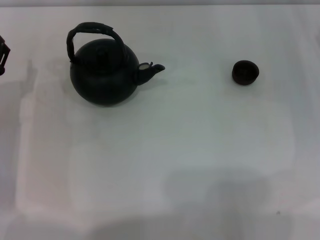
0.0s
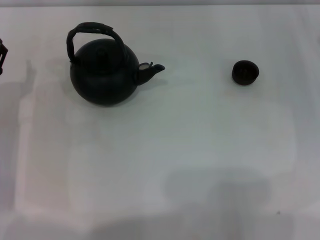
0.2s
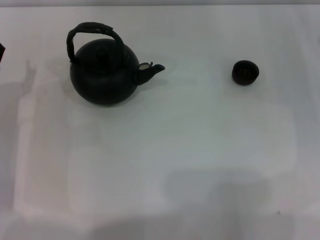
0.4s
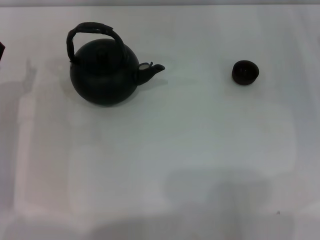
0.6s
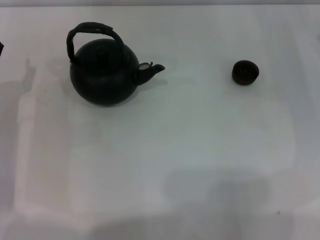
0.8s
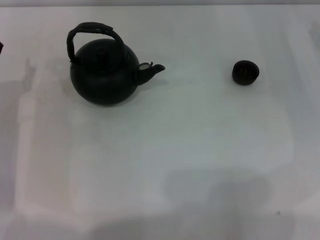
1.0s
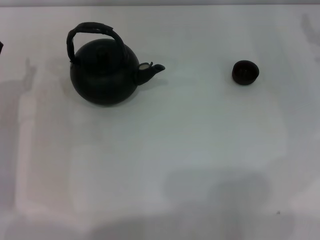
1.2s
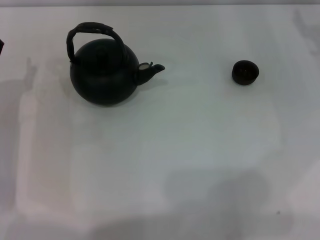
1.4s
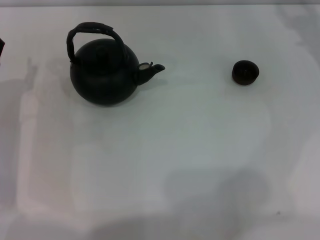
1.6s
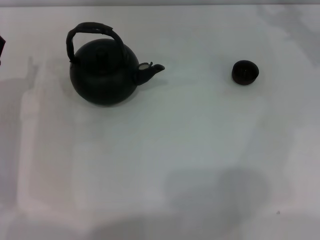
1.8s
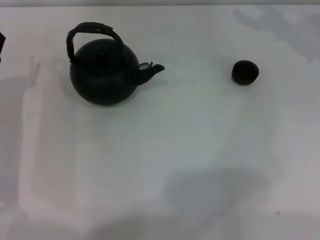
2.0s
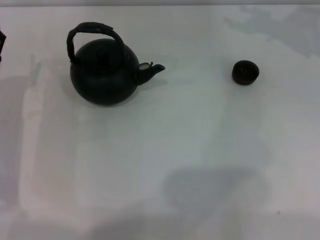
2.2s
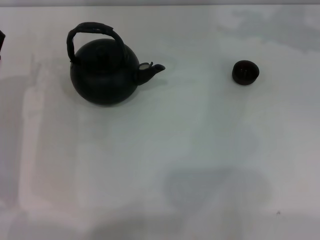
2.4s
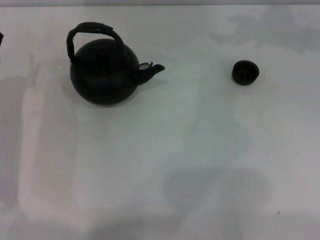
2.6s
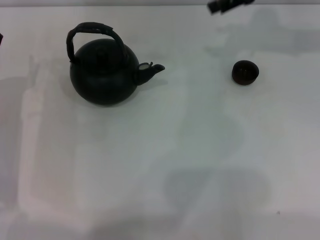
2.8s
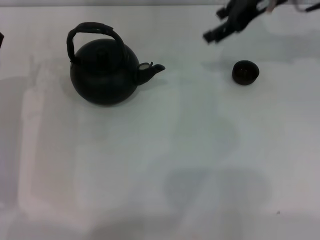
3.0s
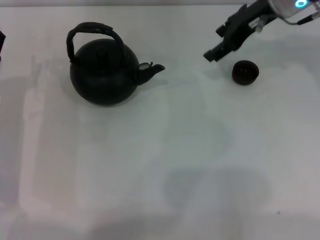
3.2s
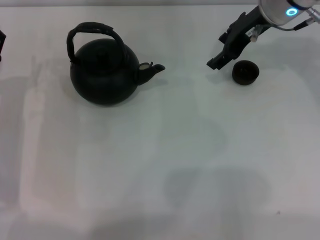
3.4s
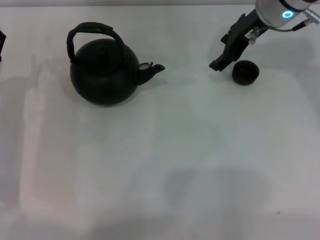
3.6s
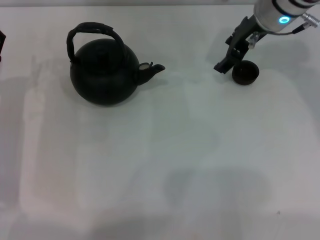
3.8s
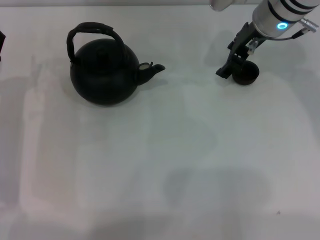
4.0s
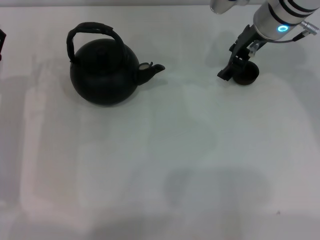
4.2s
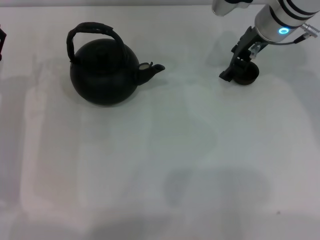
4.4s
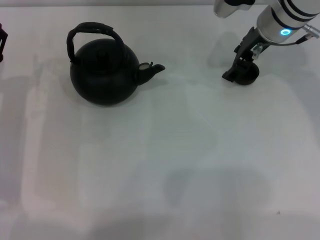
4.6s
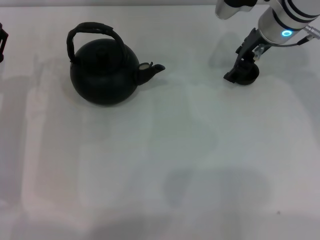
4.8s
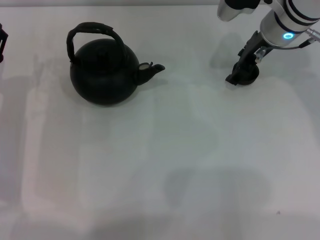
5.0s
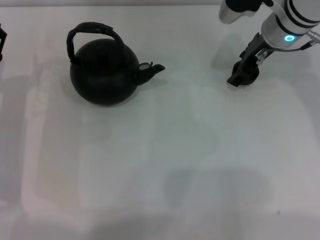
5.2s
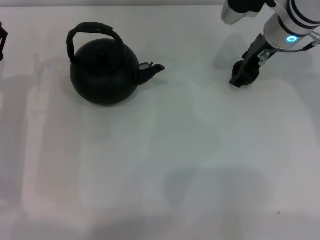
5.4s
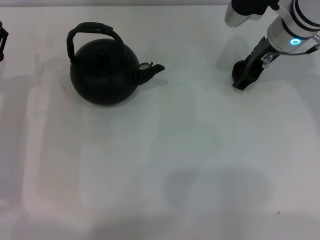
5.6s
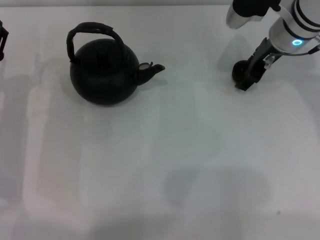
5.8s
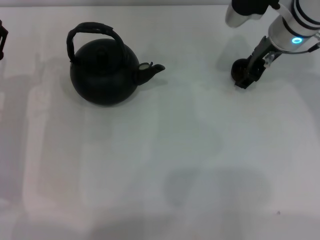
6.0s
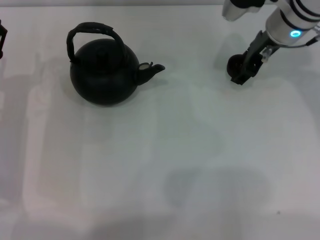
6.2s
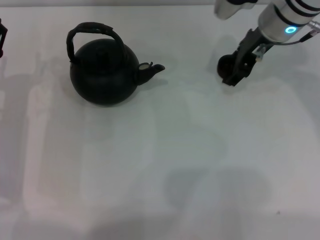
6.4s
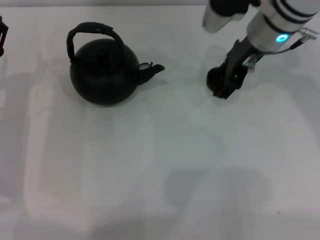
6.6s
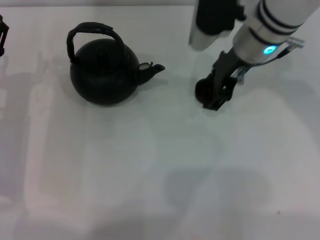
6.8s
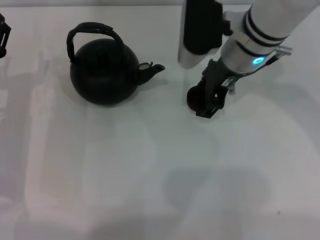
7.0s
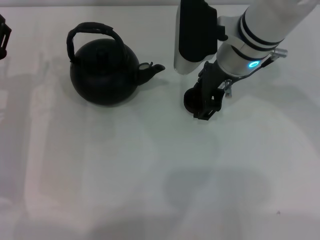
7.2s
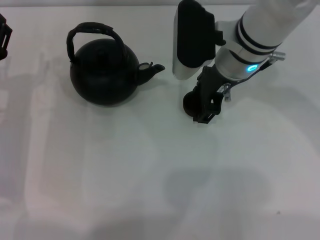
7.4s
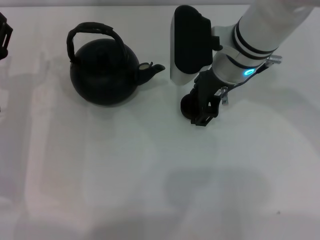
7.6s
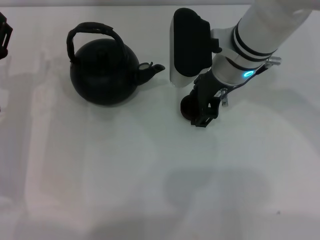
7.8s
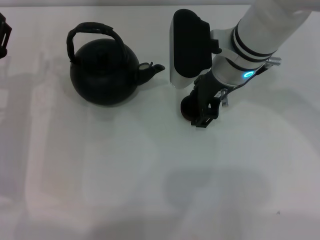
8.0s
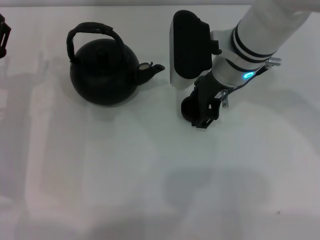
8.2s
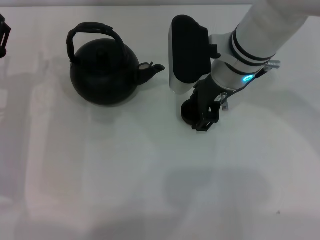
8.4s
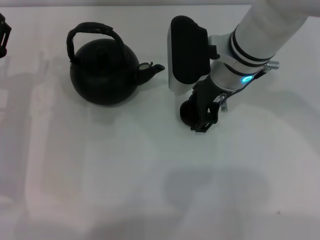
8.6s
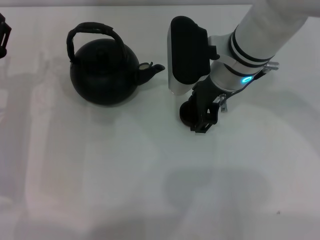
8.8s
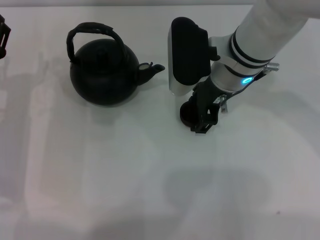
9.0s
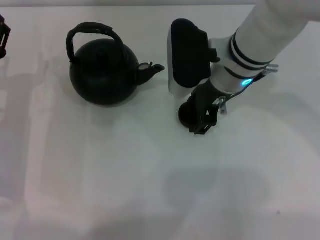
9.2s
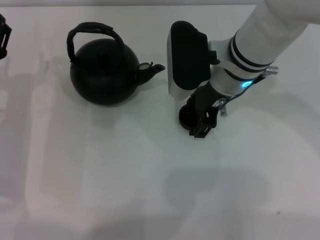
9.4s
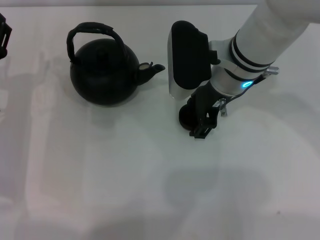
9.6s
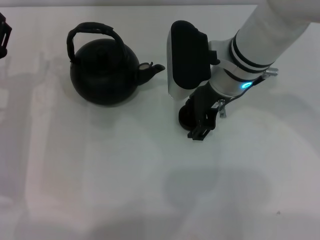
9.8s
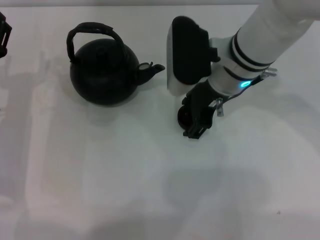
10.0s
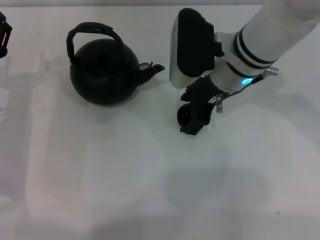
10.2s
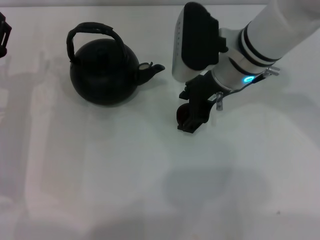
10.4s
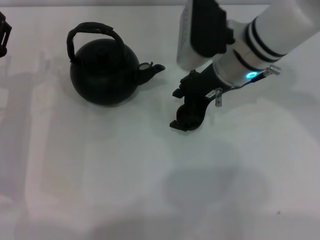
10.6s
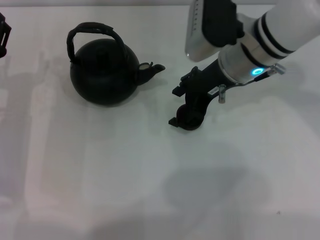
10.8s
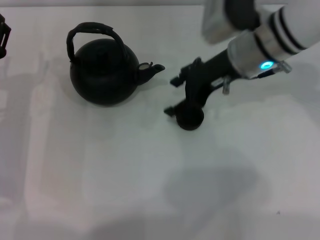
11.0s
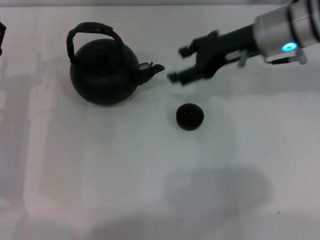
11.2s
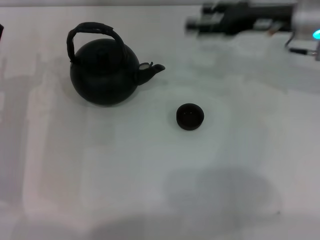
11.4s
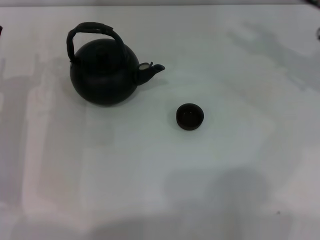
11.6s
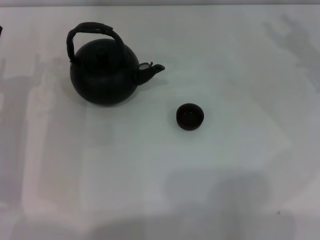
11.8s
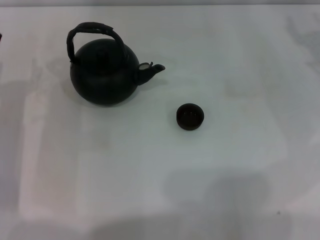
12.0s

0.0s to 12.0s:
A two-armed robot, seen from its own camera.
Task of the whole recording: Grasp the handle of the teapot with one hand and pour tea into the teacup.
Step, 0.0s to 6.2s: Pick up the teacup with the right gripper.
Step, 6.4s to 11.0s: Place the teacup in the center of view with the right gripper.
1.6s to 3.0s: The right gripper shifts about 15 cm to the left and upward.
3.0s to 4.4s: The right gripper moves downward, some 5 cm.
4.4s to 6.0s: The grippers make only small movements.
6.0s to 7.6s: The right gripper goes roughly 10 cm to the left and backward.
7.6s to 9.0s: Both grippers stay put.
9.0s to 10.4s: The grippers stay close to where they were, moving slightly.
10.4s to 12.0s: The right gripper moves to the right, approximately 20 cm.

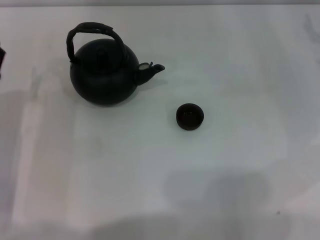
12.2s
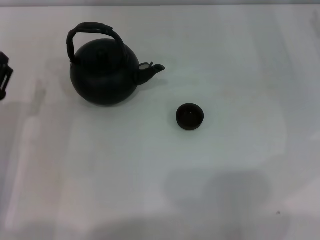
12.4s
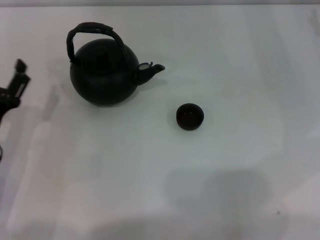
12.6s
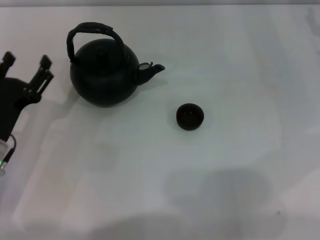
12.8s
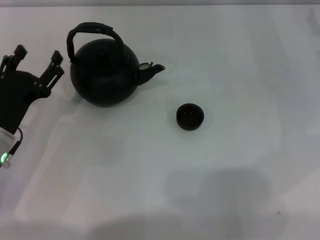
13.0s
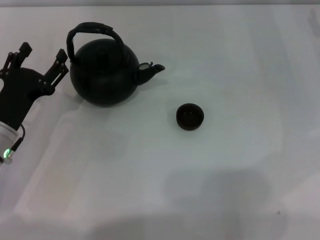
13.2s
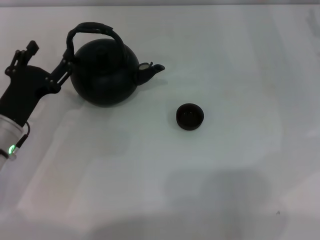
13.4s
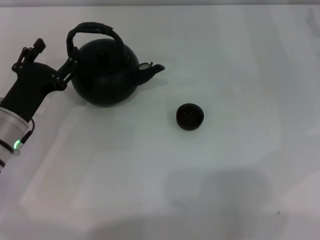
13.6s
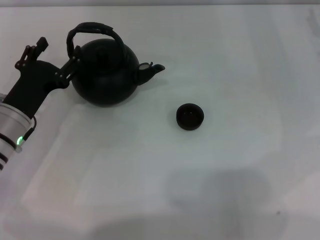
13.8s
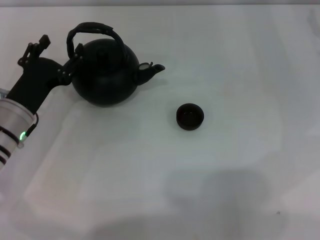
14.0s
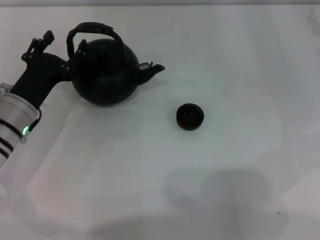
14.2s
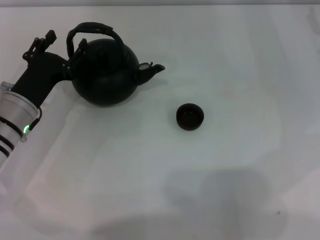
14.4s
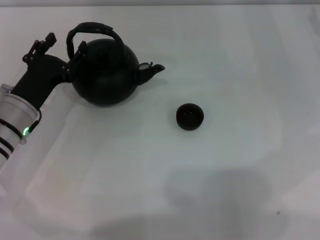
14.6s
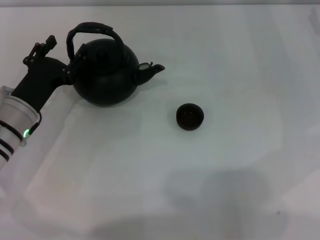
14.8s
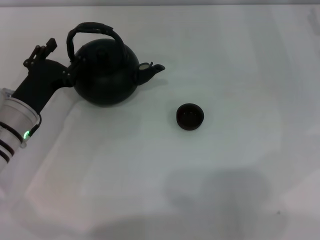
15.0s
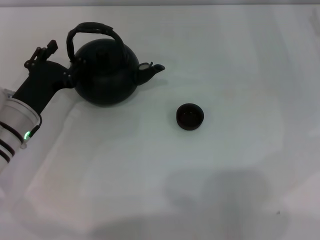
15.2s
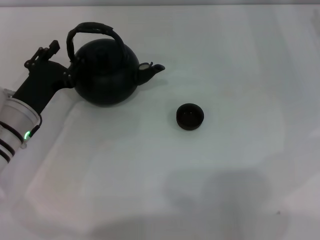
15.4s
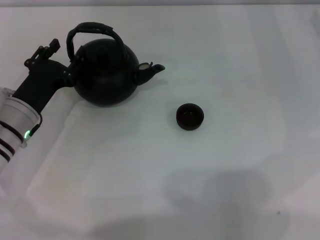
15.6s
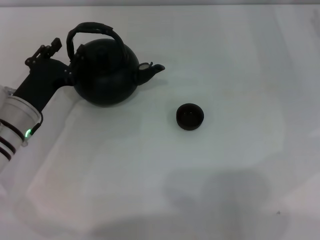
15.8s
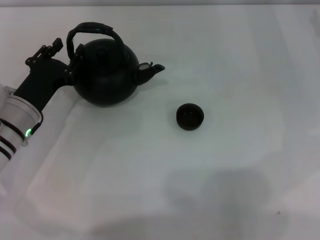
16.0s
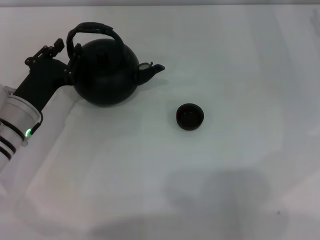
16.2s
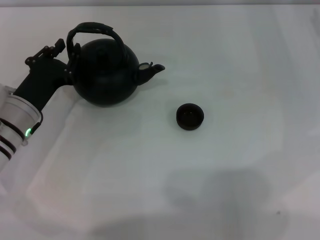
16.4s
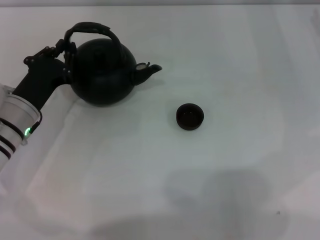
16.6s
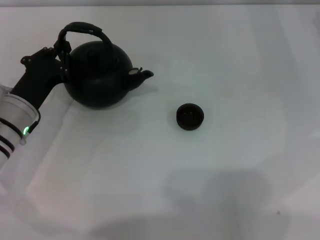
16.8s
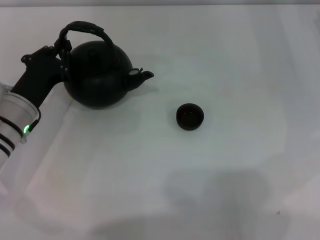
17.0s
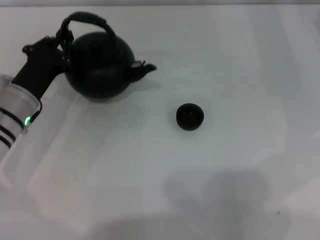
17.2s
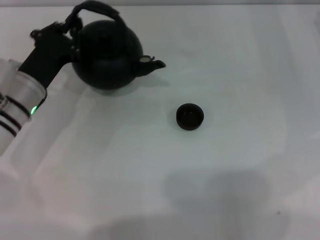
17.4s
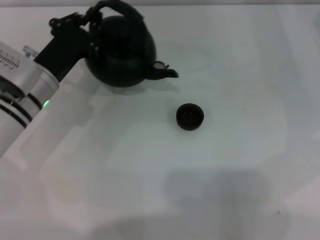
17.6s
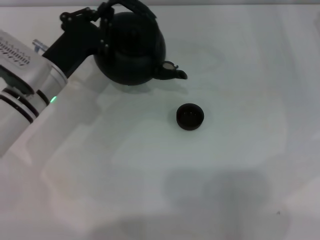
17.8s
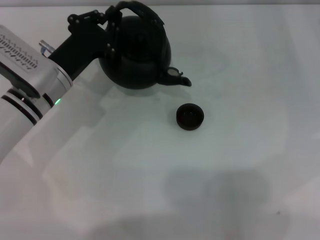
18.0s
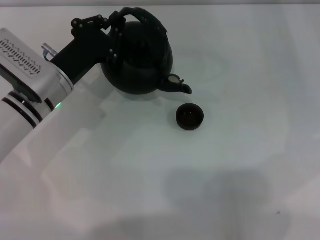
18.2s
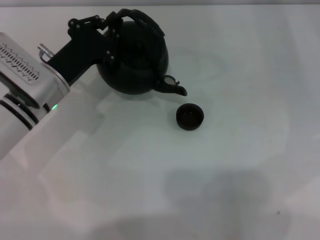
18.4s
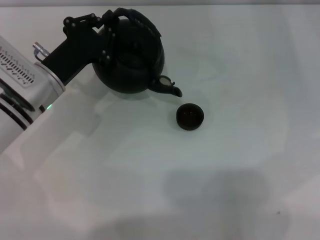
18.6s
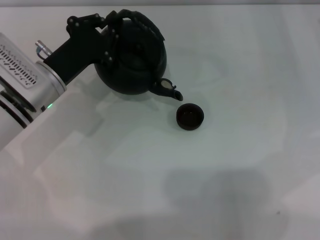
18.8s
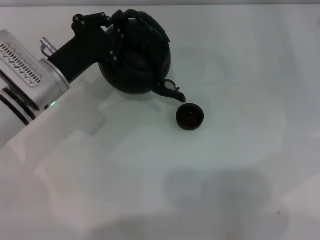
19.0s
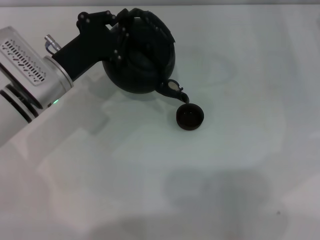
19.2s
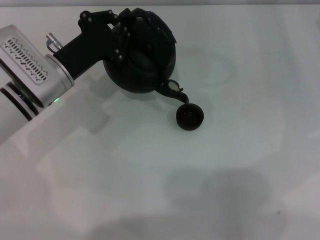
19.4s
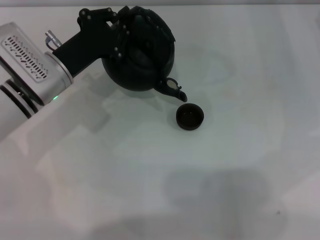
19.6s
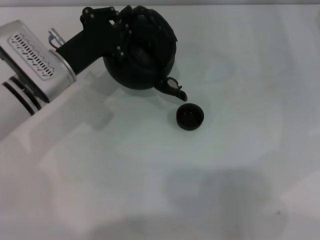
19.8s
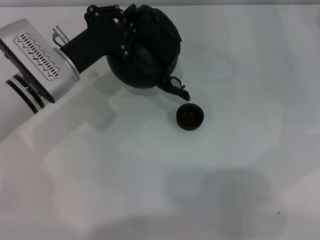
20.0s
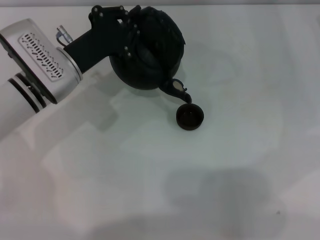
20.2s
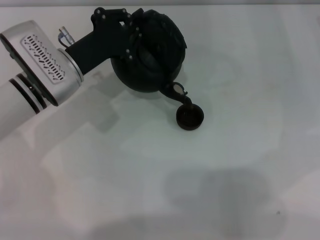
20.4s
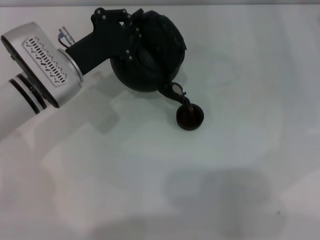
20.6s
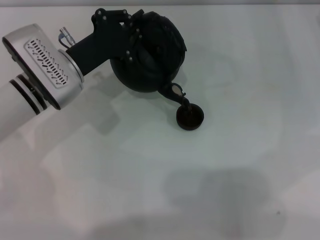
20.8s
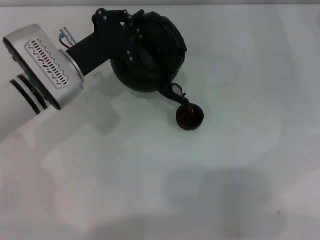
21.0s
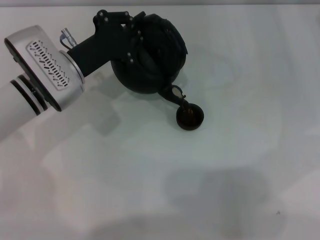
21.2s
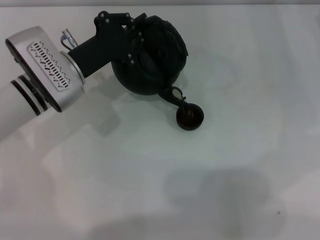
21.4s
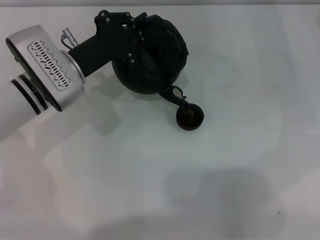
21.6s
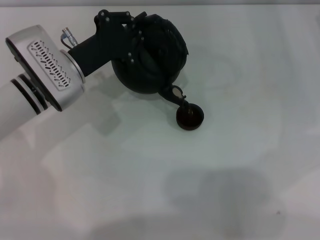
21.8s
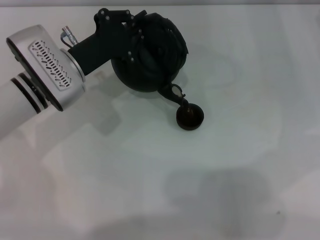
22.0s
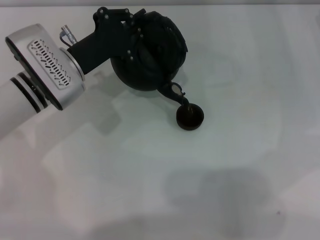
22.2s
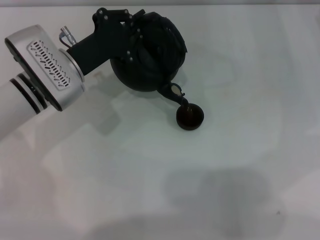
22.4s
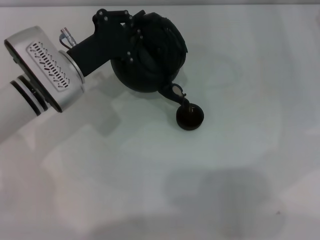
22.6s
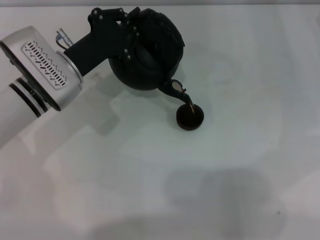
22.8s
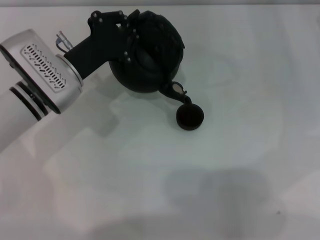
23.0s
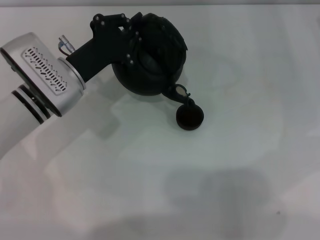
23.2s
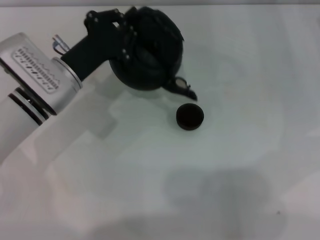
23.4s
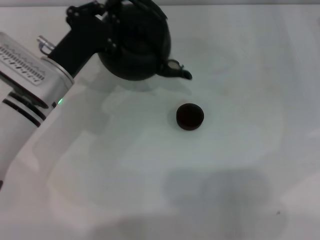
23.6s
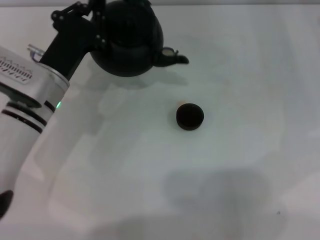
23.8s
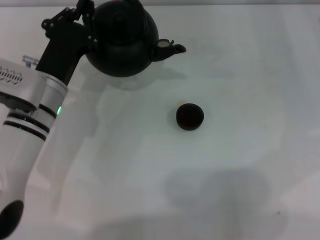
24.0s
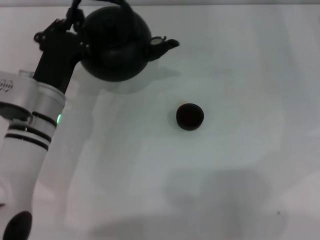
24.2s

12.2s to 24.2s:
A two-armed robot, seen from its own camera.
Task of the whole recording: Grasp the handle of the teapot with one hand and pour tea into the teacup.
Step, 12.2s to 17.4s: Pick up the teapot with the left gripper.
Step, 17.6s to 23.8s: Pour tea into the teacup with the left gripper.
13.8s to 15.2s: The grippers move only a little.
15.2s to 16.6s: The left gripper closes its fingers.
16.6s to 18.2s: The left gripper changes place by roughly 5 cm.
18.2s to 19.8s: There are only small adjustments of the grippers.
19.8s to 21.2s: There are only small adjustments of the grippers.
21.2s to 22.6s: Both grippers stay put.
22.6s to 24.2s: The left gripper goes some 5 cm backward.
